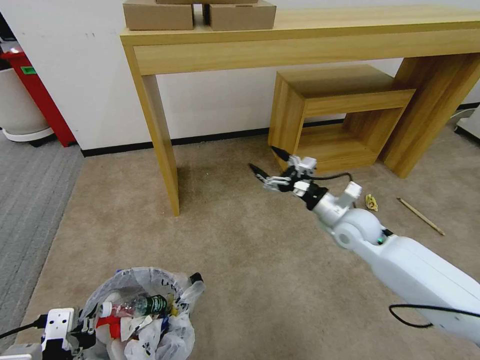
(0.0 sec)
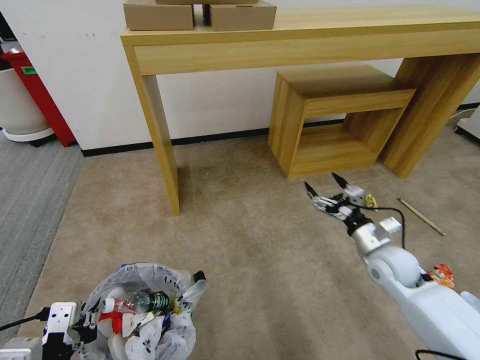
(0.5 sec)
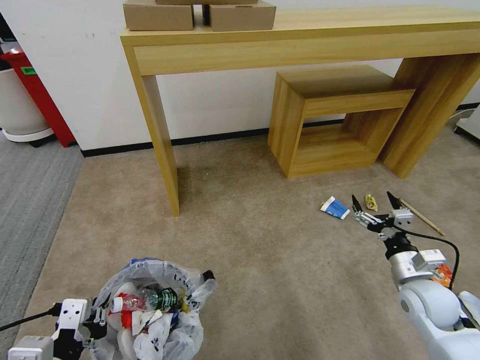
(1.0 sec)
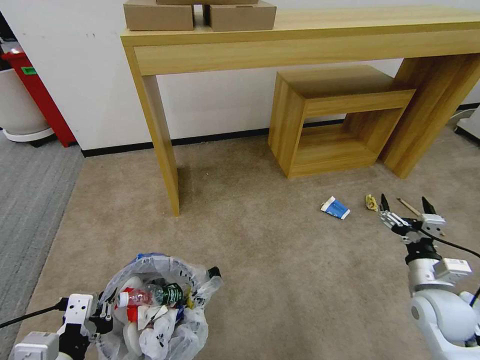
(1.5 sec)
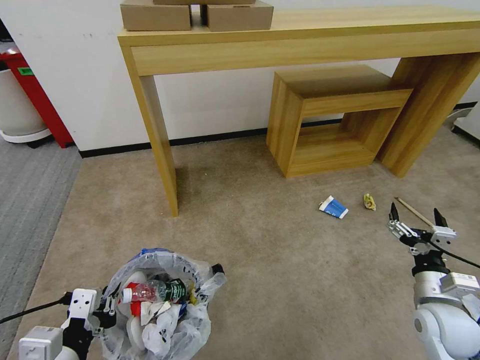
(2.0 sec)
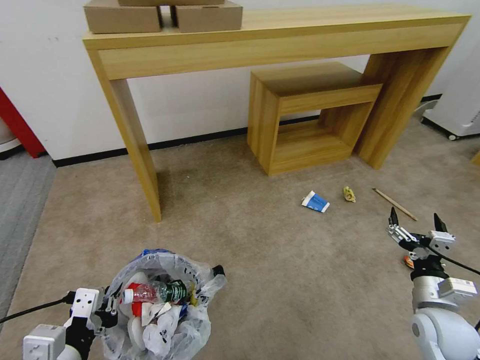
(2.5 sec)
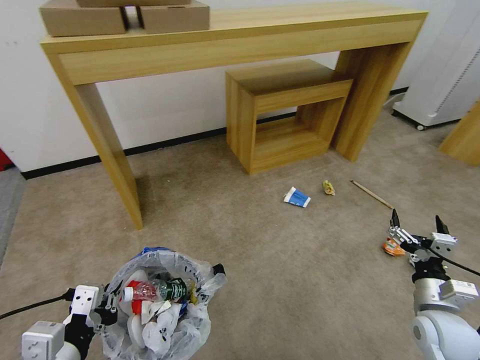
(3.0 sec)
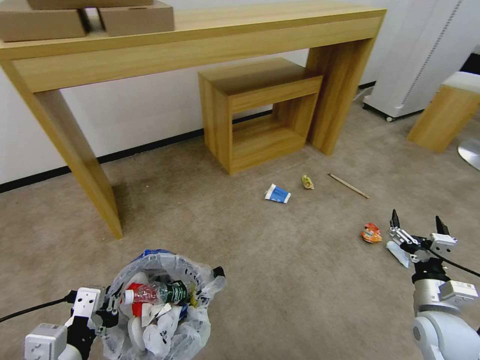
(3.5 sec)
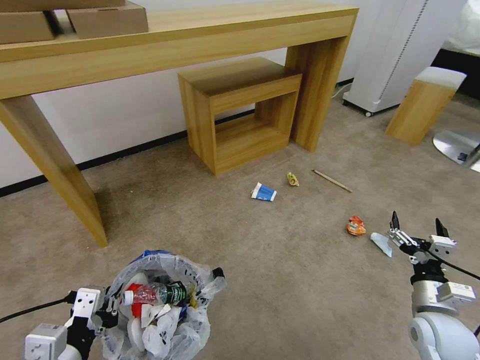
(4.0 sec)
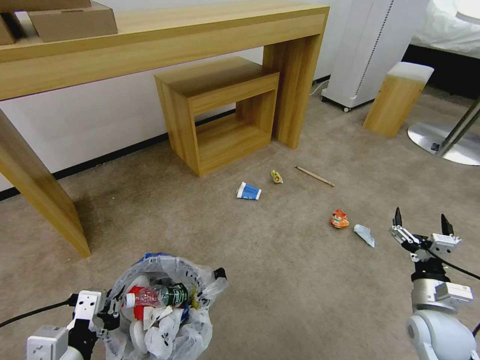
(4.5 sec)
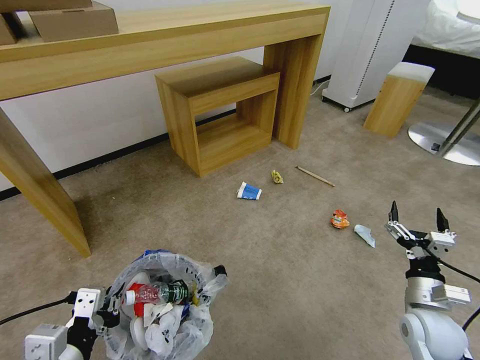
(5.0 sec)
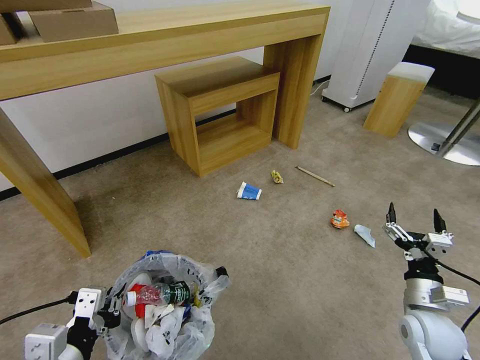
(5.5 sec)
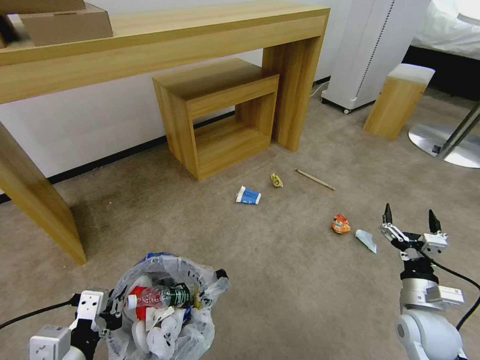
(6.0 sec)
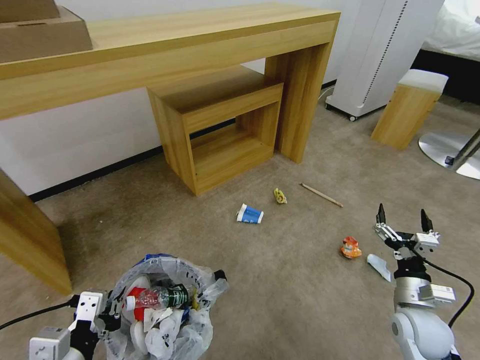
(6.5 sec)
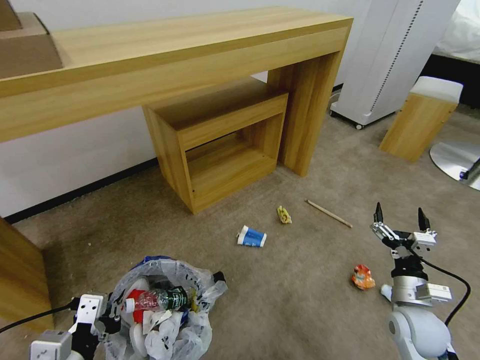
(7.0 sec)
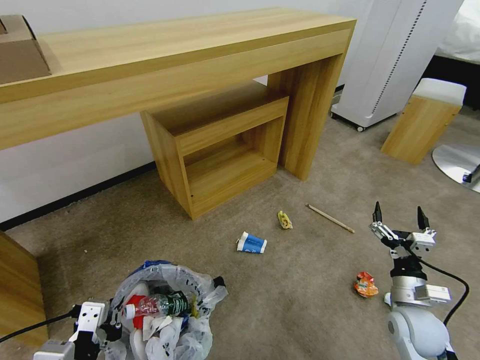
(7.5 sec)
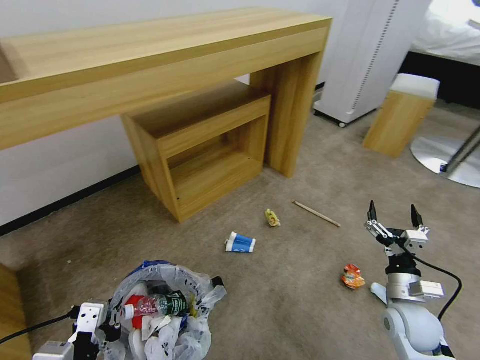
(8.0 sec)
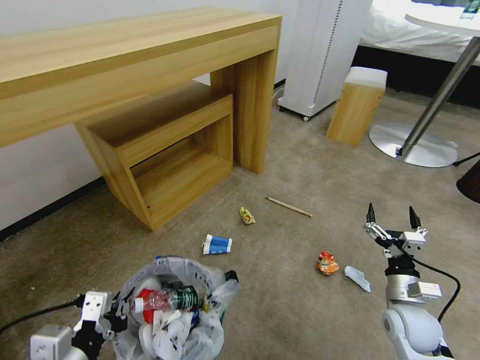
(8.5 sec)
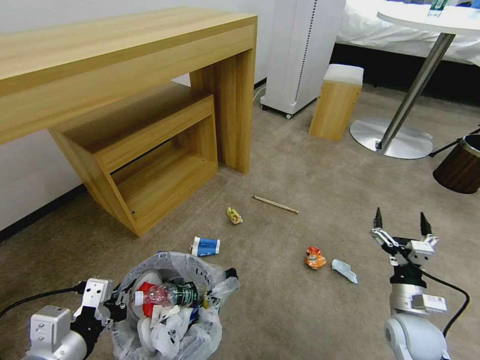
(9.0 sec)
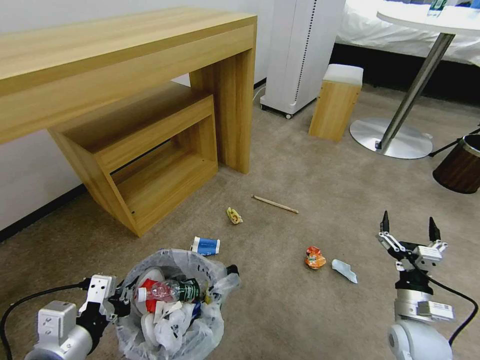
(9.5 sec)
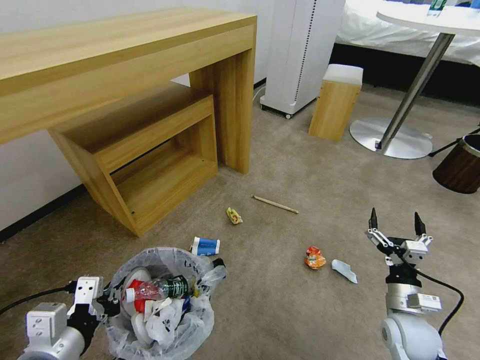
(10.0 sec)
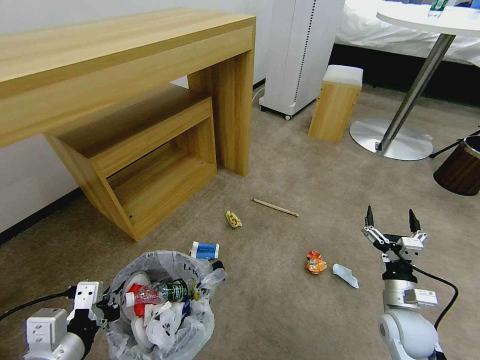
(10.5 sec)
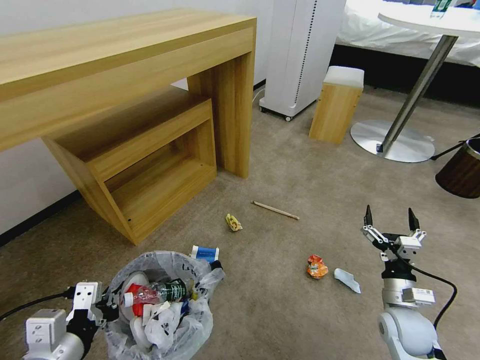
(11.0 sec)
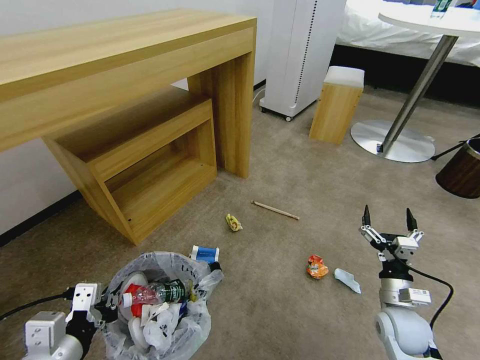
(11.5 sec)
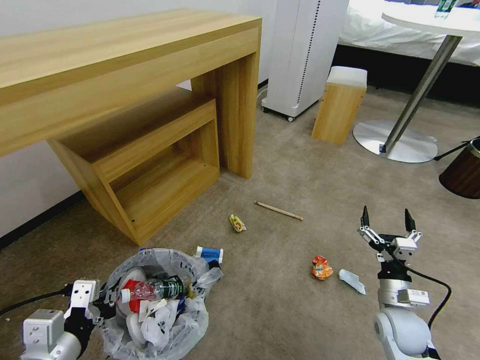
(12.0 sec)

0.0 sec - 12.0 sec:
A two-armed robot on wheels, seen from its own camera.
Task of the whole recording: Pick up the trash bin and place the garbage on the floor into it.
0.0 sec - 2.0 sec: The right gripper heads backward, to the right and downward, covering roughly 25 cm.
8.0 sec - 10.0 sec: The left gripper changes place by some 5 cm.
10.0 sec - 12.0 sec: The grippers make only small movements.

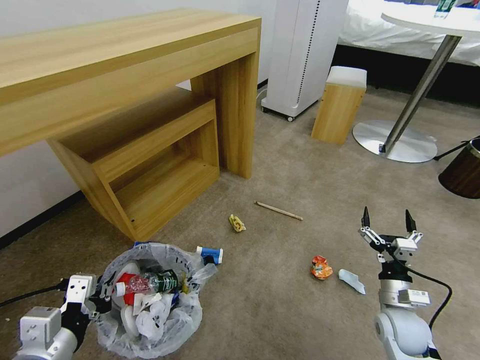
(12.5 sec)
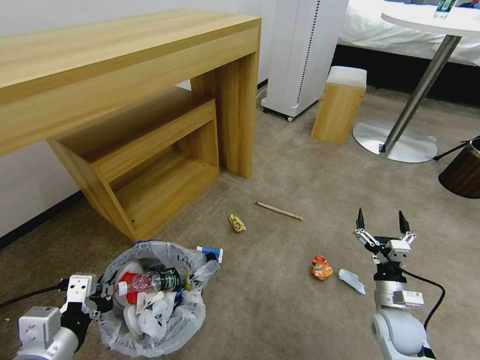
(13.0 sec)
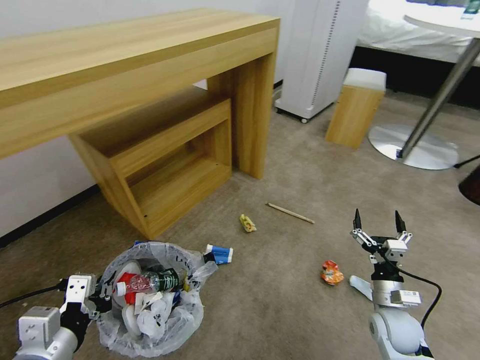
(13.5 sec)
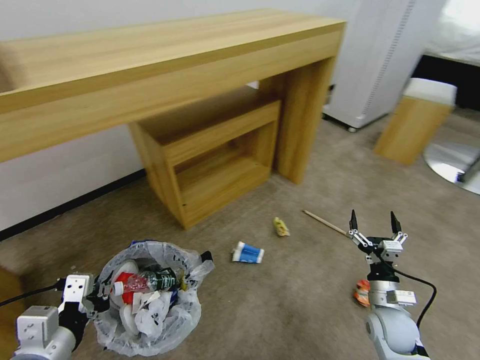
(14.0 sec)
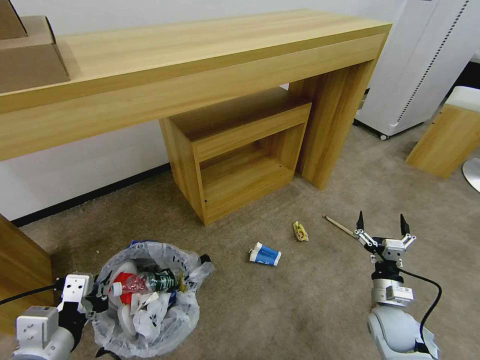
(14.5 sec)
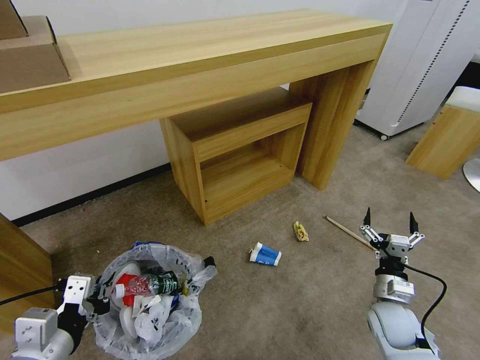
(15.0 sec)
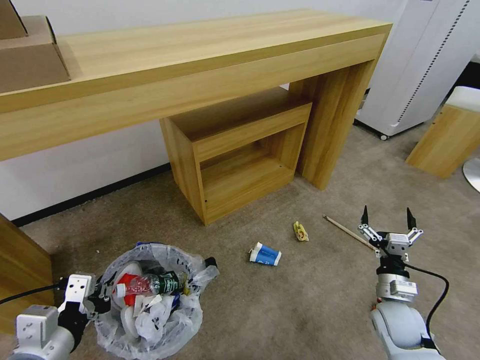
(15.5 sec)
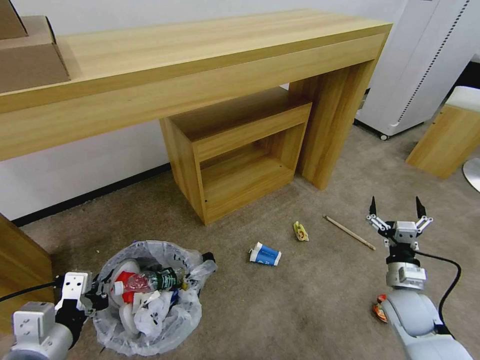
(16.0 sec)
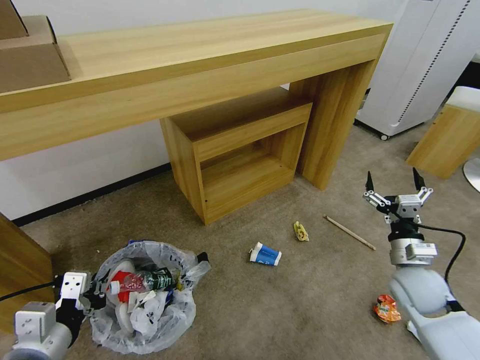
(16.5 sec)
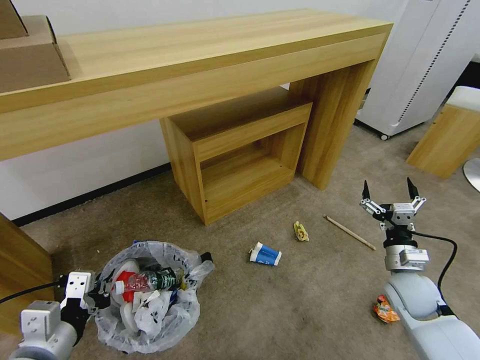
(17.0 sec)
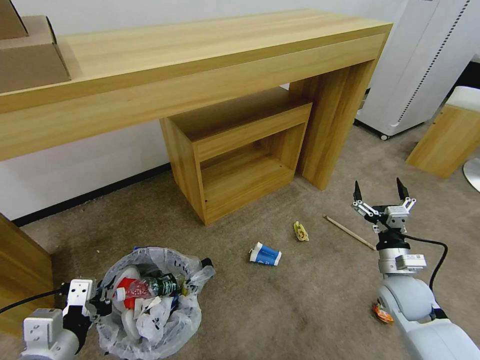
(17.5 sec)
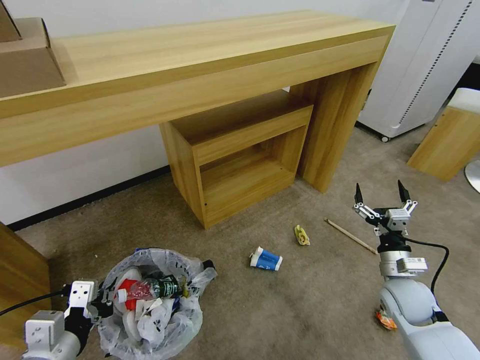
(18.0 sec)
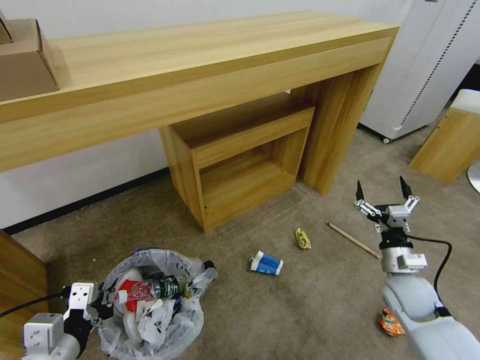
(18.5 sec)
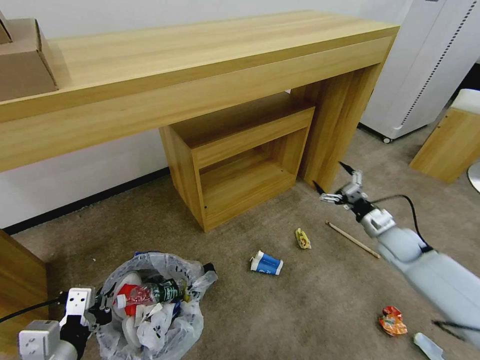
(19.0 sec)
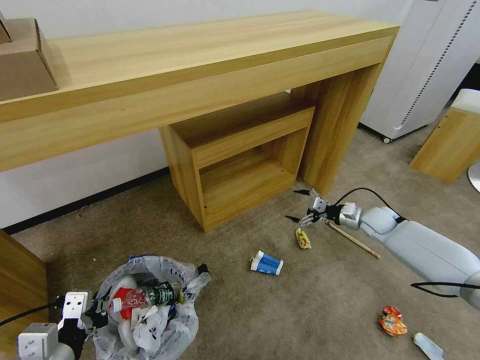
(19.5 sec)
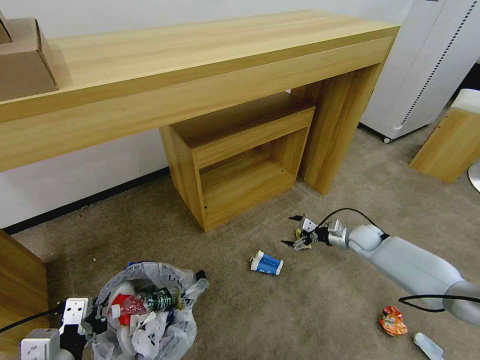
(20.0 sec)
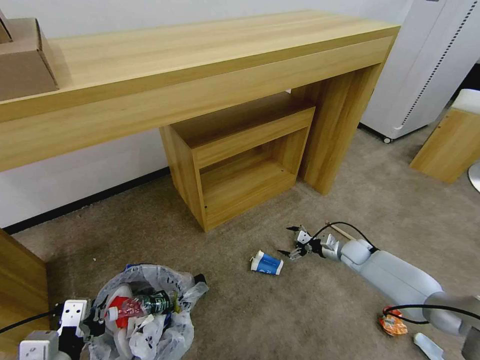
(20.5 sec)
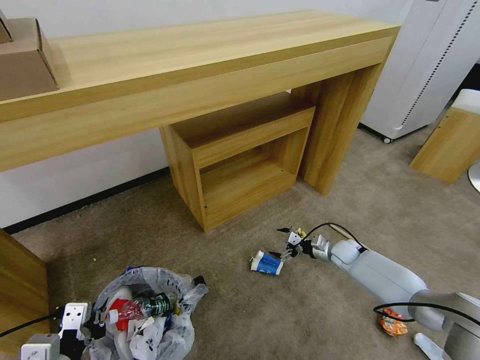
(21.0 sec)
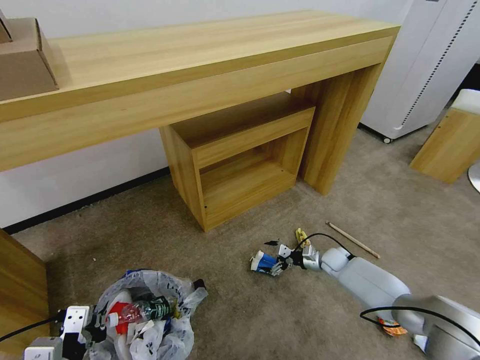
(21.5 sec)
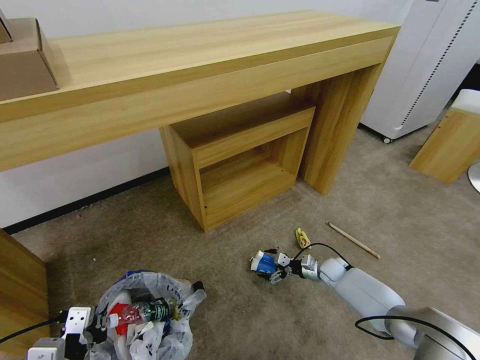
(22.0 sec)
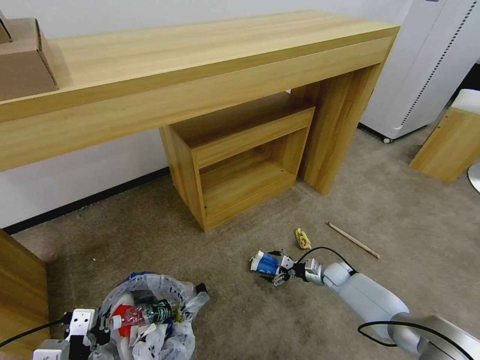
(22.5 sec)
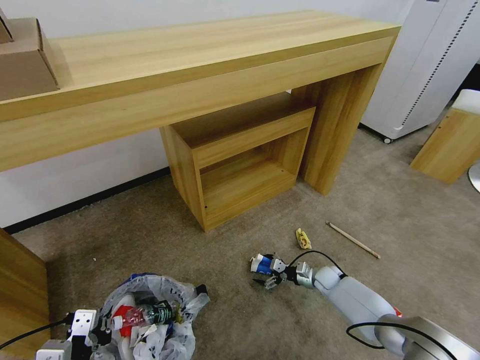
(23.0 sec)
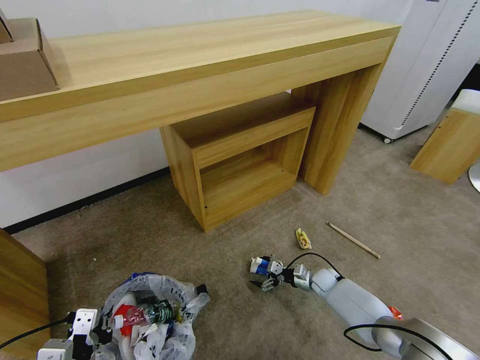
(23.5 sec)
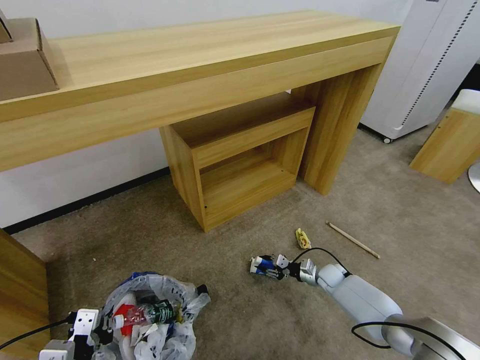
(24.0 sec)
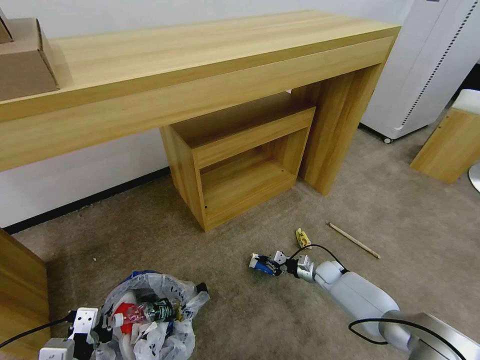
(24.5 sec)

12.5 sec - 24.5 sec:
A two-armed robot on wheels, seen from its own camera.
Task of the whole recording: Pick up the trash bin and place the garbage on the floor into it.
14.5 sec - 16.5 sec: The right gripper is displaced upward by some 10 cm.
18.5 sec - 20.5 sec: The right gripper shifts approximately 20 cm forward and downward.
20.5 sec - 22.5 sec: The right gripper heads downward, covering some 10 cm.
22.5 sec - 24.5 sec: The right gripper closes up.

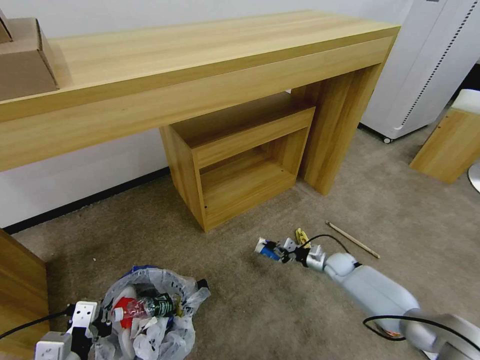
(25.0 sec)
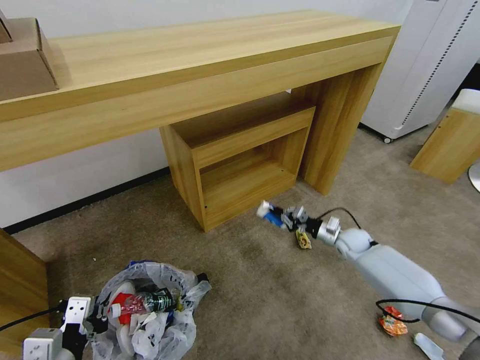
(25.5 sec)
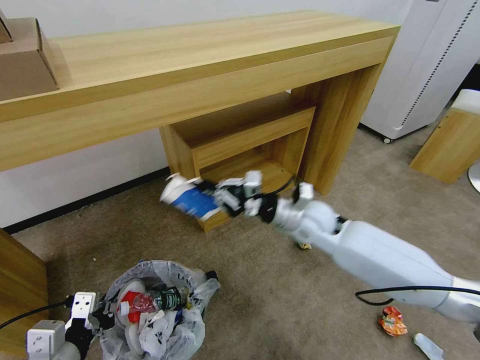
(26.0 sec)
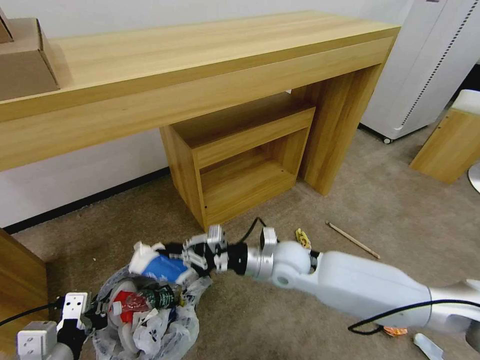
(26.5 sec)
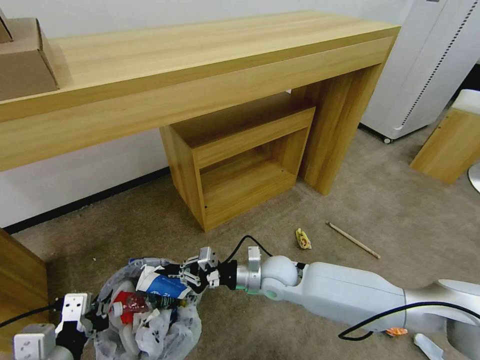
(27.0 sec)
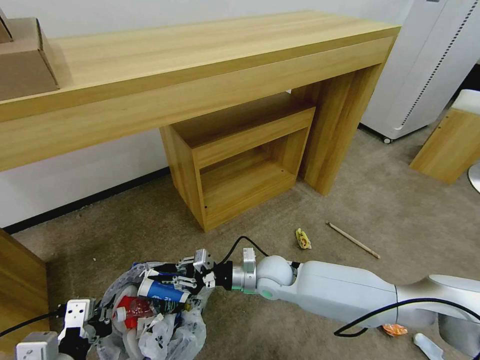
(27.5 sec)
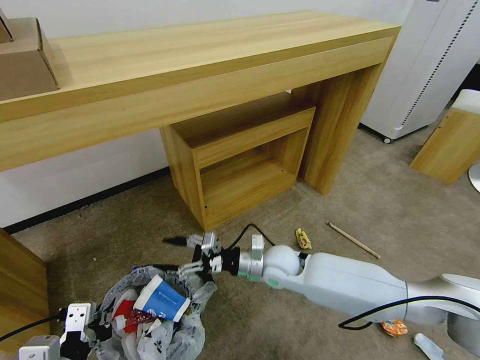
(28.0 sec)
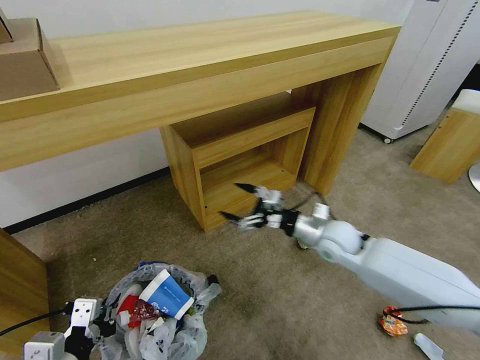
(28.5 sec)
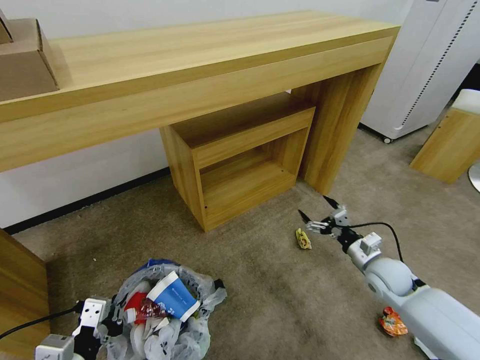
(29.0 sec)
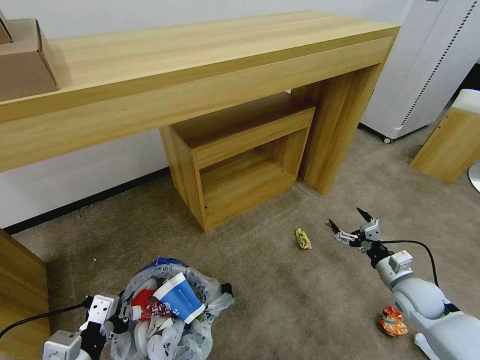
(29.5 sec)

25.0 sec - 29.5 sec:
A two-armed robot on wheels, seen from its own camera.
Task of the whole recording: Pick up the trash bin and place the garbage on the floor into it.
25.0 sec - 27.0 sec: The left gripper moves upward, approximately 5 cm. The right gripper heads to the left, upward and backward, covering roughly 30 cm.
27.0 sec - 29.5 sec: The right gripper is displaced to the right by roughly 35 cm, and opens its fingers.
